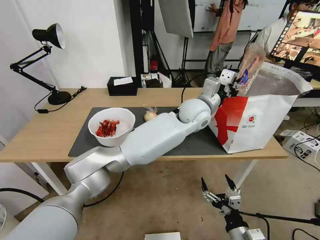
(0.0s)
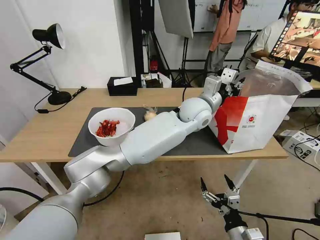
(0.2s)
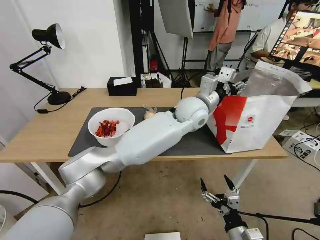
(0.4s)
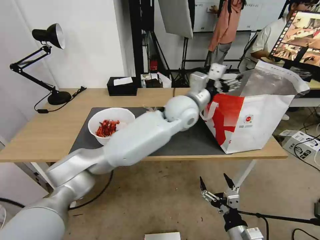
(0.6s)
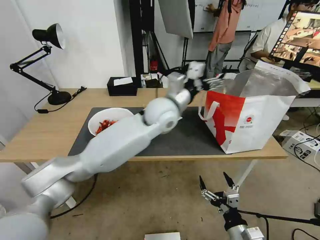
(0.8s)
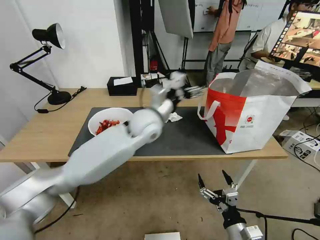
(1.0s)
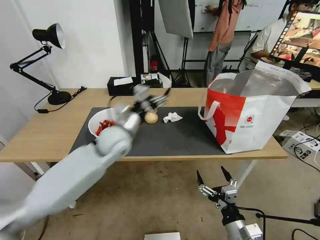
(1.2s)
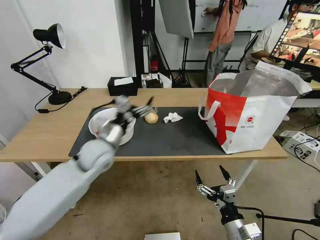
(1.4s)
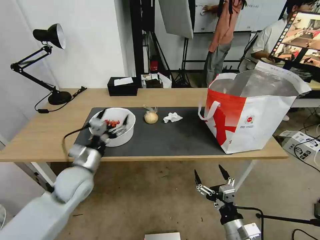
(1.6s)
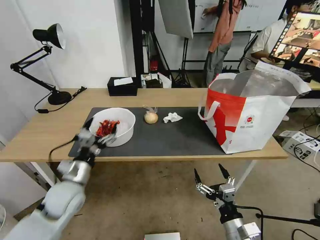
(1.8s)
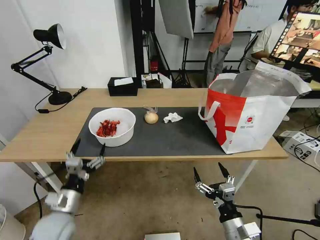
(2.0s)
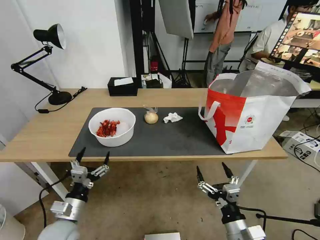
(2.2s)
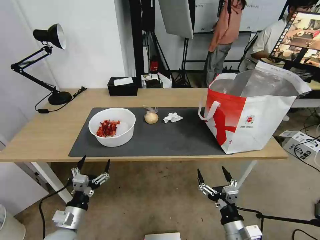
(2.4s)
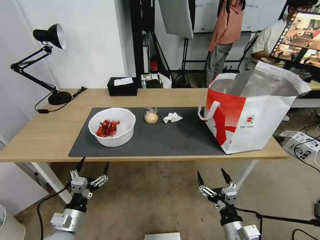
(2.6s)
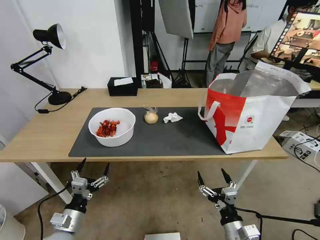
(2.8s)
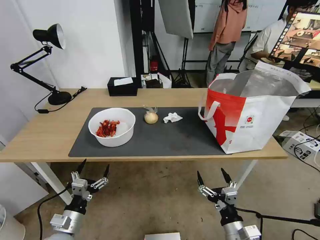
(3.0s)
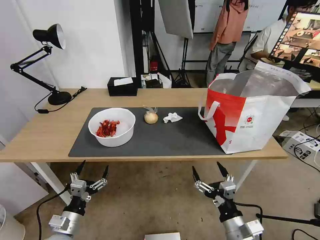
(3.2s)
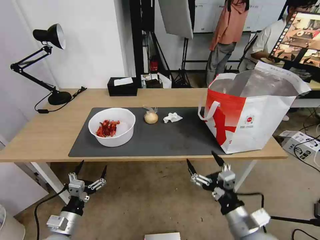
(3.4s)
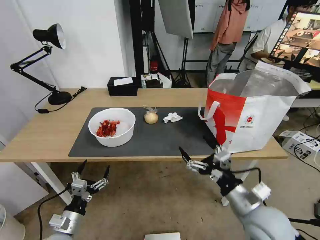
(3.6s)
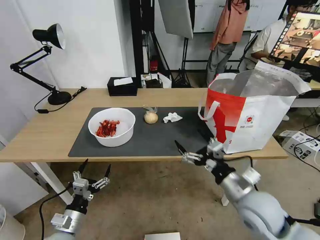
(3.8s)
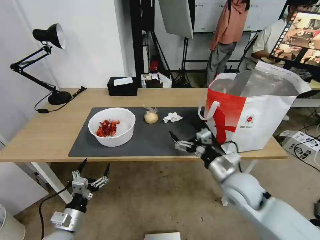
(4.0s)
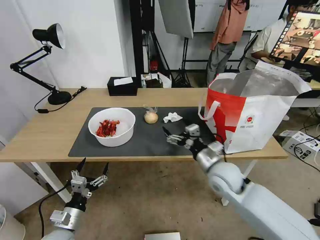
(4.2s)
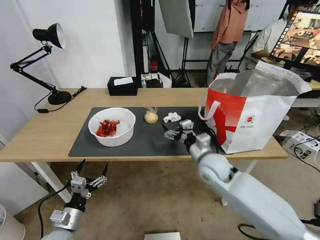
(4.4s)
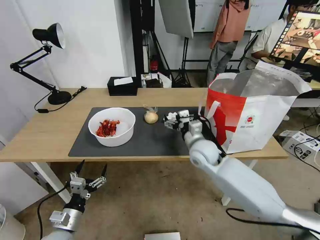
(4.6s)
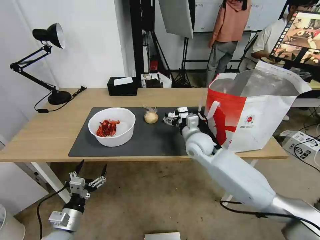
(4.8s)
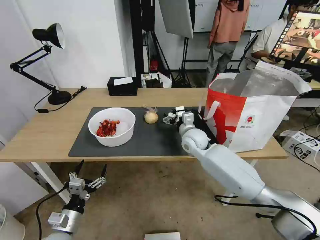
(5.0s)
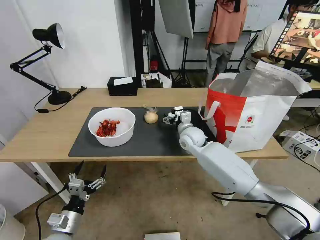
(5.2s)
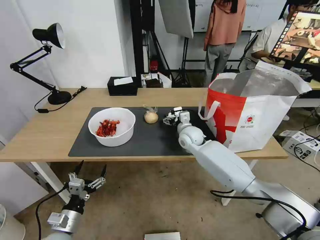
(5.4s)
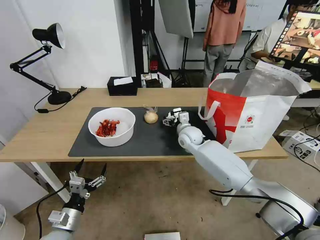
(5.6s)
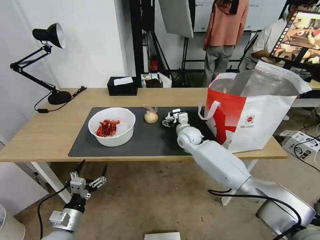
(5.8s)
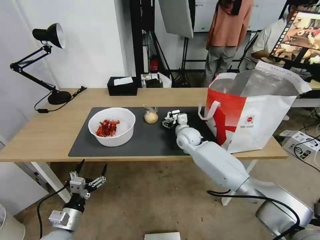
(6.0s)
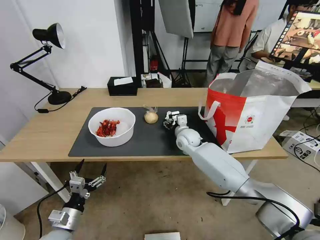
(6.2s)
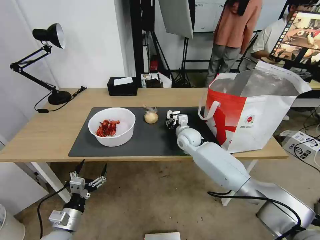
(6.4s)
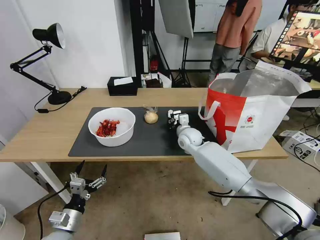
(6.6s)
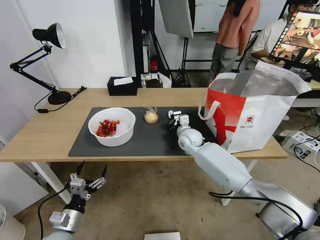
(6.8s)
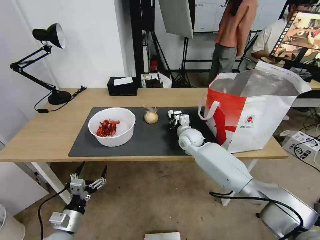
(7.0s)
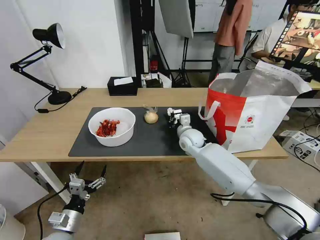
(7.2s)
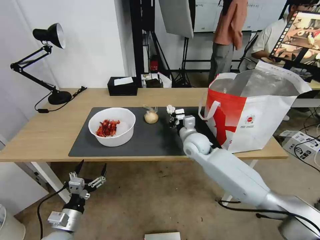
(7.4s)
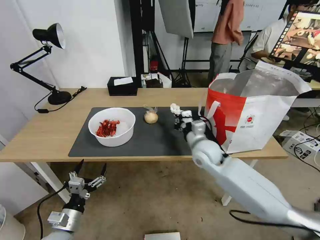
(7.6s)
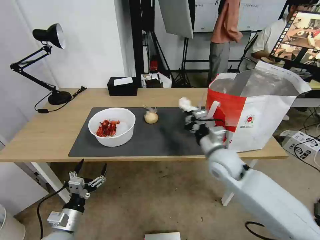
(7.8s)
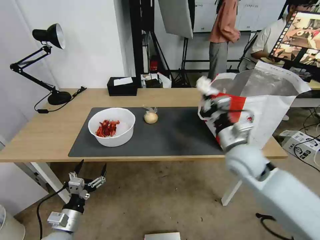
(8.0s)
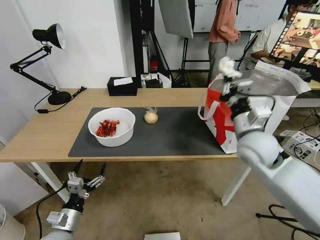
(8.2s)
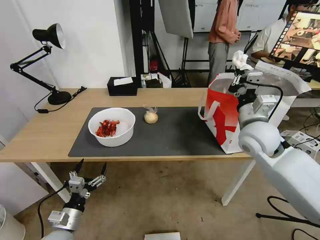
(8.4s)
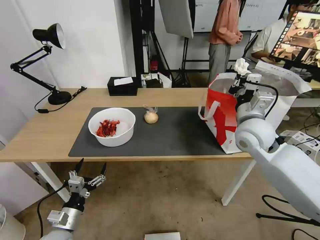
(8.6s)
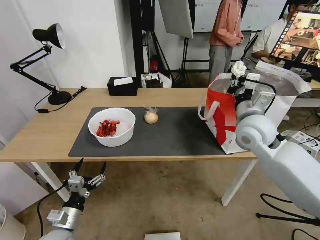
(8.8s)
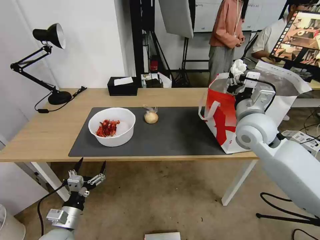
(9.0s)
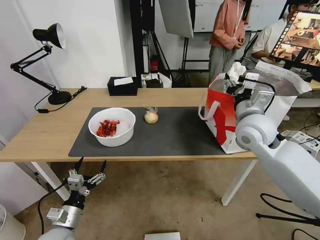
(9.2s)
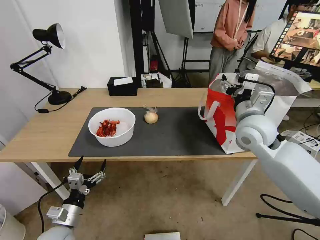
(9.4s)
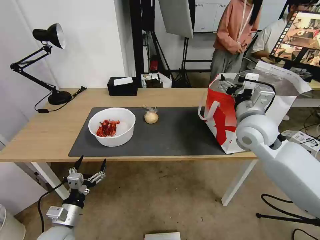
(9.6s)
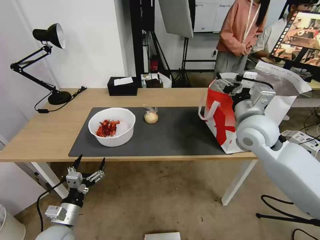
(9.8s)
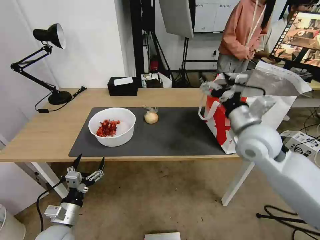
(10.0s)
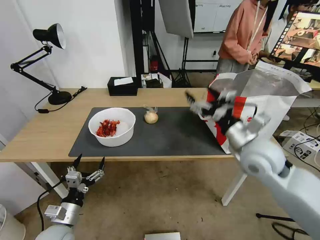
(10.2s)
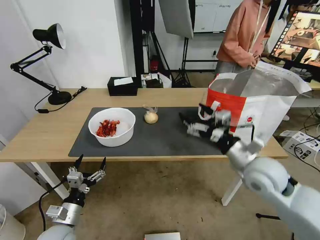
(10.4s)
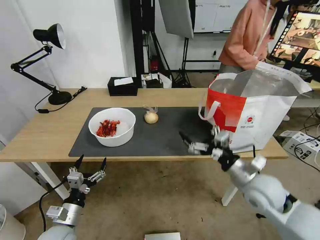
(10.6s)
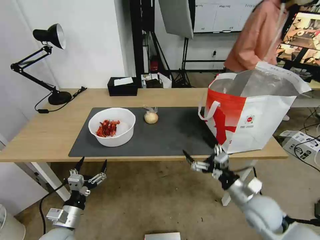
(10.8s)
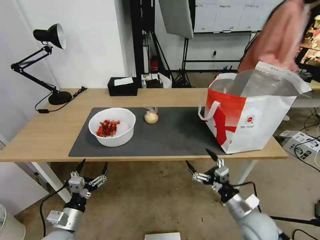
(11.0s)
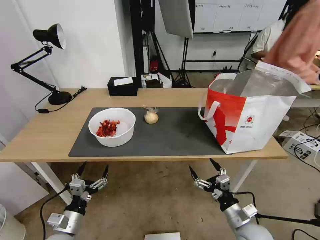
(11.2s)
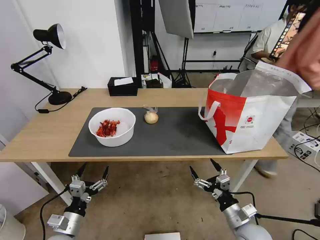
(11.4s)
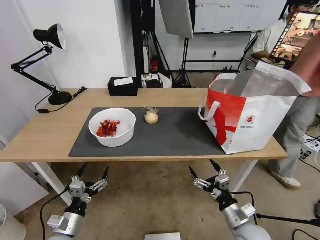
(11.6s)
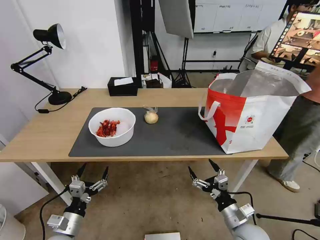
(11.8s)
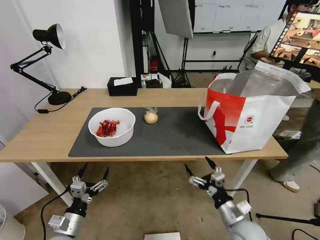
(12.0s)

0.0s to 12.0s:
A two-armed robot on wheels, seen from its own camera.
Task of the whole recording: Pick up the trash from the table and place it into the takeout bag.
0.0s to 1.6s: The left gripper travels to the left and backward by roughly 40 cm, and opens up.
1.6s to 3.0s: The left gripper travels backward and downward by roughly 20 cm.
3.0s to 4.4s: The right gripper shifts some 25 cm forward and upward.
4.4s to 6.0s: The right gripper travels forward by approximately 15 cm.
6.0s to 7.6s: The right gripper is displaced backward by roughly 10 cm, and closes its fingers.
7.6s to 9.0s: The right gripper heads upward and to the right, covering roughly 15 cm, and opens up.
9.0s to 10.4s: The right gripper goes some 15 cm backward and downward, and opens its fingers.
10.4s to 12.0s: The right gripper goes approximately 20 cm downward and backward.

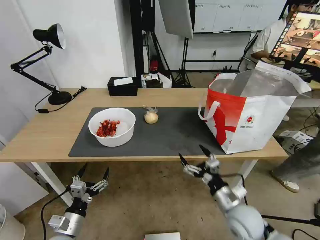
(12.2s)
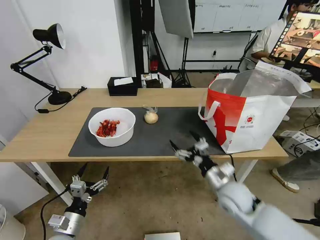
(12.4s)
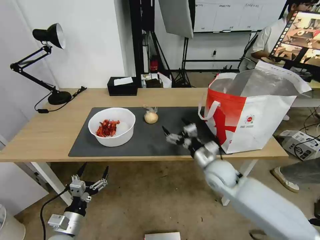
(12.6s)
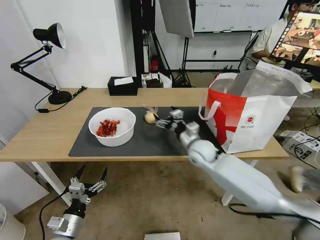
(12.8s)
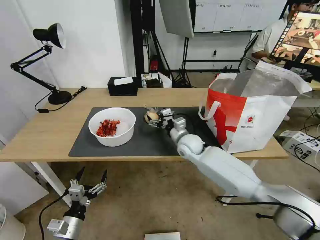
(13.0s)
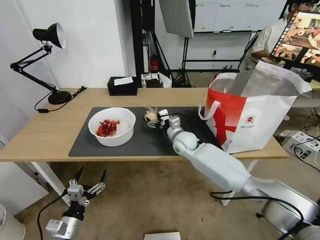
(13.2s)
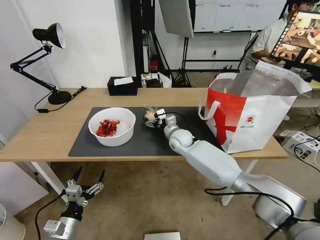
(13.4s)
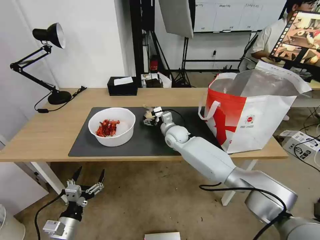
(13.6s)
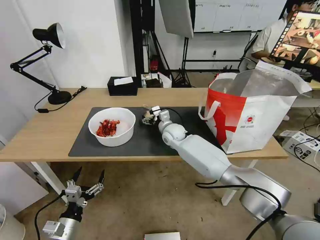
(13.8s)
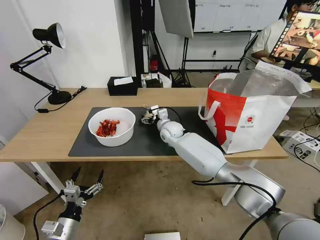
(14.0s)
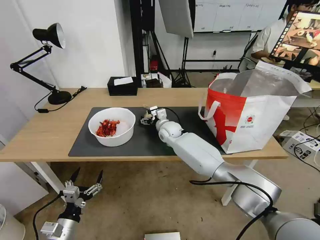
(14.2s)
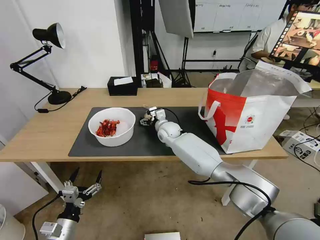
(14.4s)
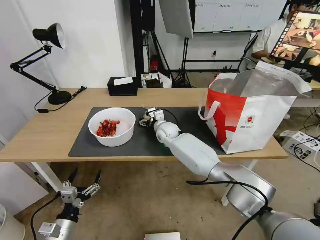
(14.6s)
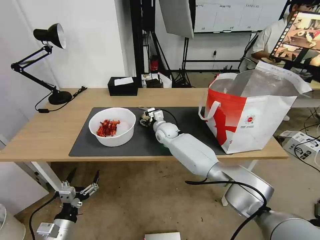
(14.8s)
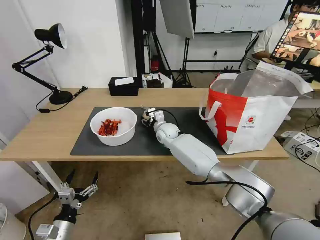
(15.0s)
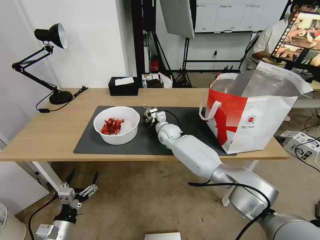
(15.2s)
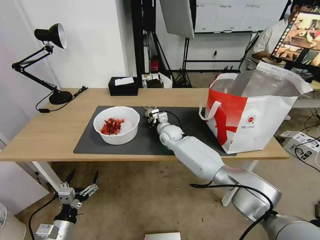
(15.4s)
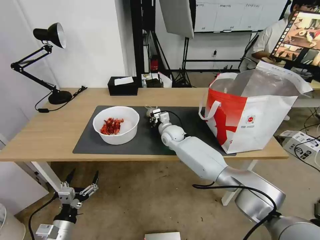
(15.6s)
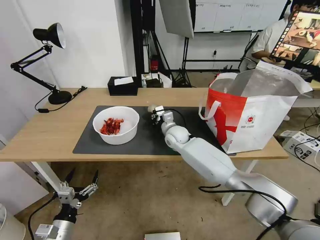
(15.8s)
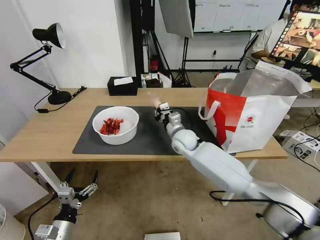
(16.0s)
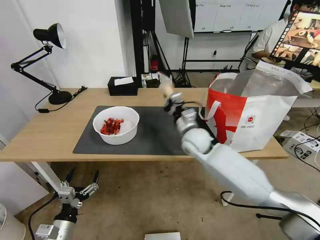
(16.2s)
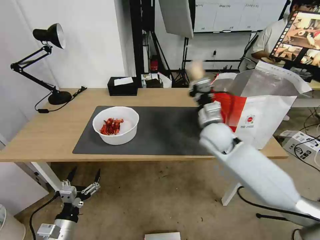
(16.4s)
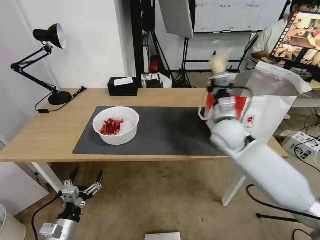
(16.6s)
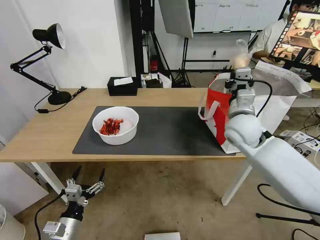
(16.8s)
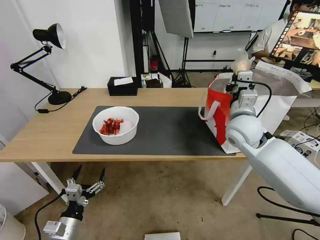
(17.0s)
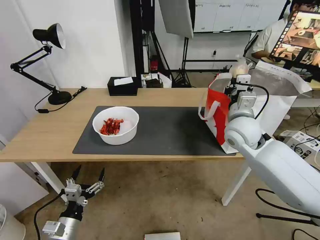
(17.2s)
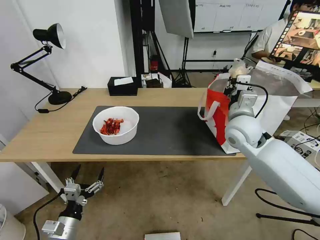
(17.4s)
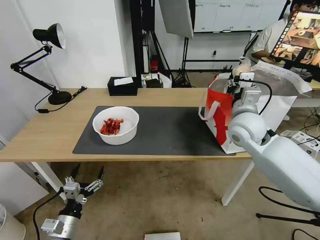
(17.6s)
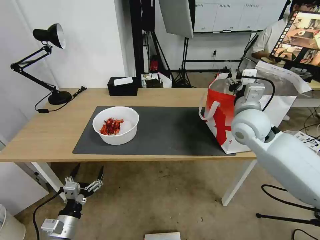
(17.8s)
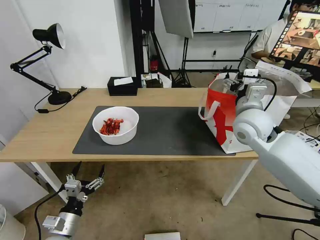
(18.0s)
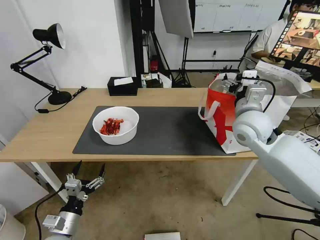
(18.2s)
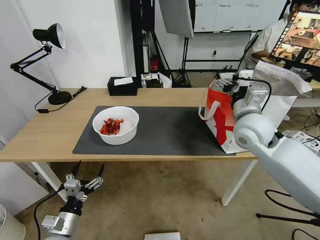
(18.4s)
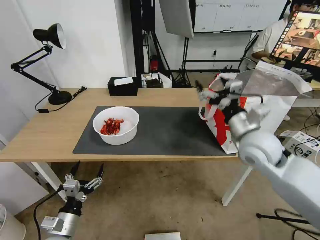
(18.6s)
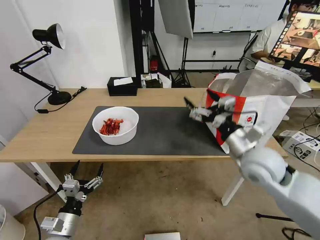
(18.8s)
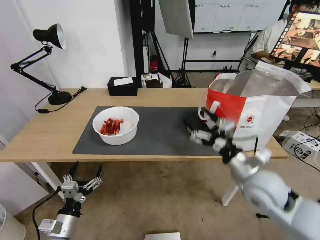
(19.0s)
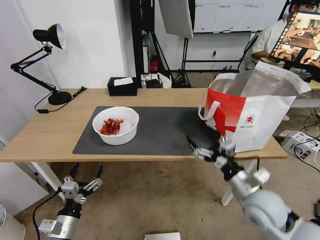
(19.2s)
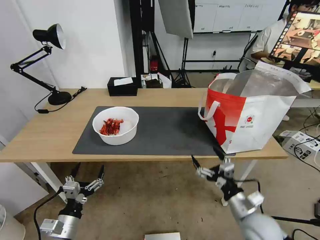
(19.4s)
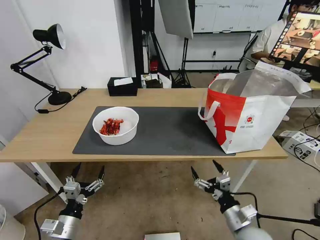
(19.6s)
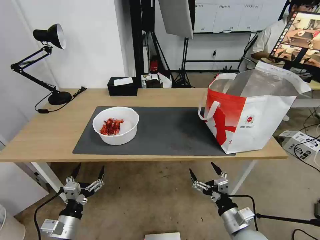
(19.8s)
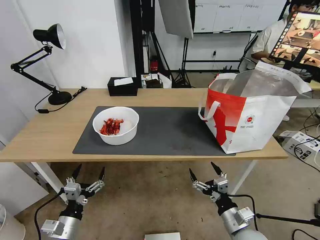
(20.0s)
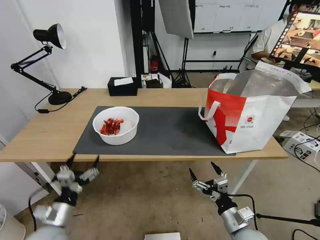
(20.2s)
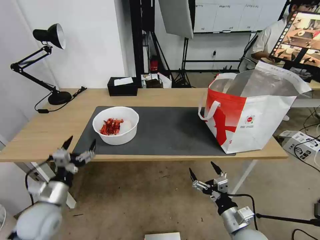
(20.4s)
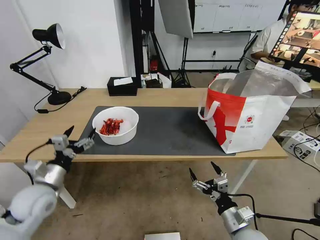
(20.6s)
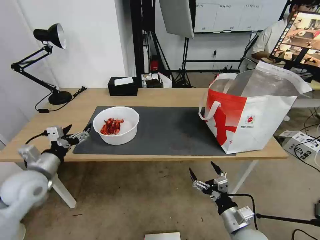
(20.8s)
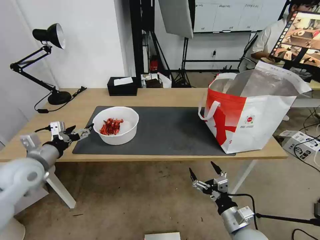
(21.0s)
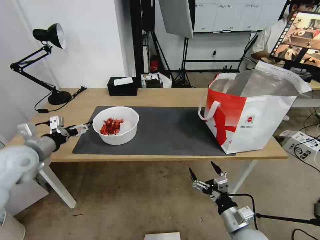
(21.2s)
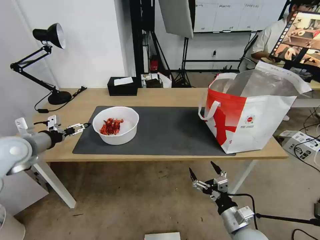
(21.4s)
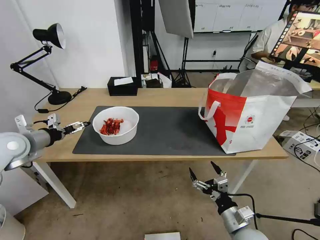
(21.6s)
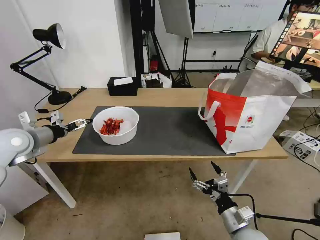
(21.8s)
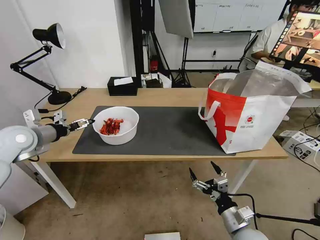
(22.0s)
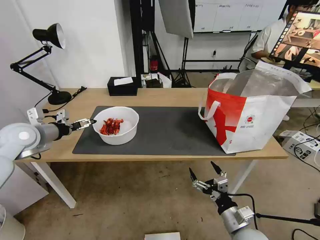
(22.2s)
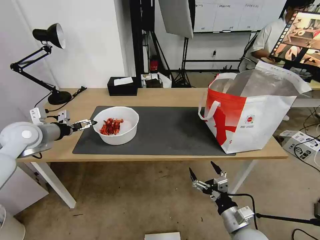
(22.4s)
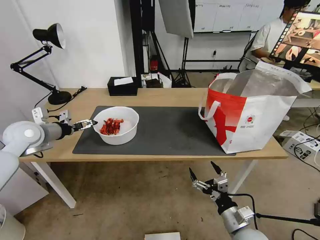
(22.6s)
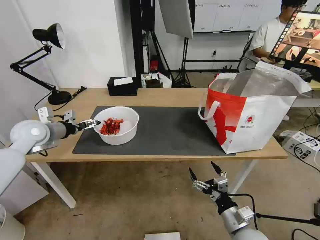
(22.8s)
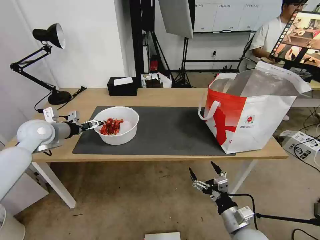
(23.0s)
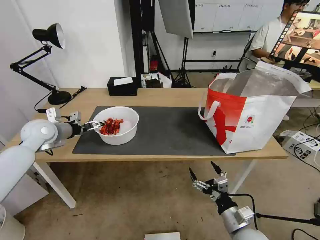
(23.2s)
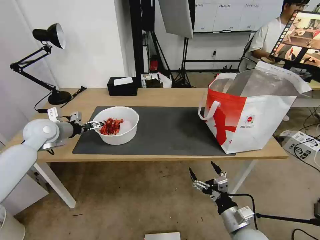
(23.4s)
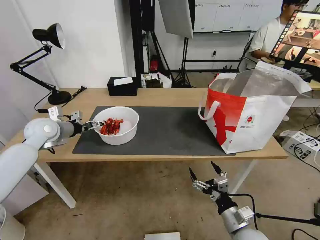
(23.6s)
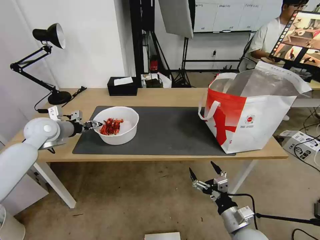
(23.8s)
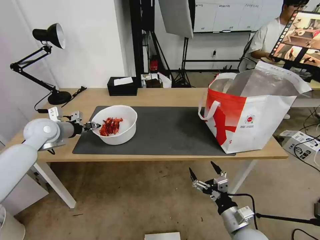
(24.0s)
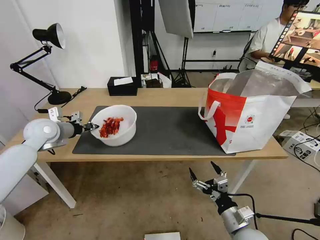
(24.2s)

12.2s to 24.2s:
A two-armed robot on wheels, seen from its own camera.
Task of the whole recording: Pick up the trash from the table and place it into the takeout bag.
12.2s to 13.8s: The right gripper moves forward and to the left, approximately 35 cm.
13.8s to 15.2s: The right gripper closes.
15.2s to 16.6s: The right gripper travels to the right, upward and backward by roughly 25 cm.
16.6s to 18.2s: The right gripper shifts by approximately 5 cm, and opens.
18.2s to 19.8s: The right gripper travels downward and backward by about 35 cm.
19.8s to 21.2s: The left gripper heads upward, forward and to the left, covering roughly 30 cm.
21.2s to 22.6s: The left gripper is displaced forward by approximately 5 cm.
22.6s to 24.2s: The left gripper closes.
